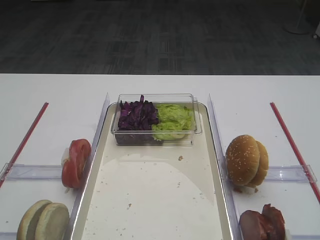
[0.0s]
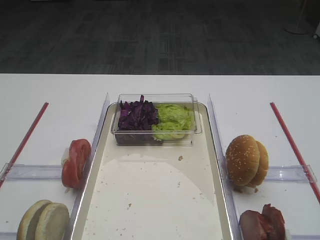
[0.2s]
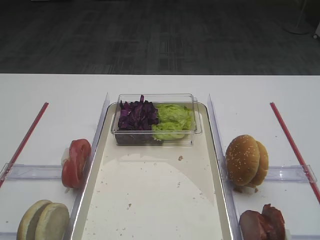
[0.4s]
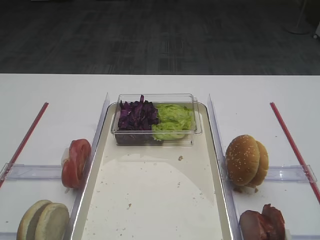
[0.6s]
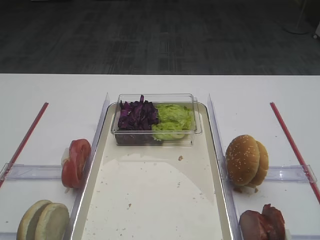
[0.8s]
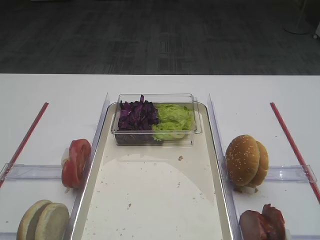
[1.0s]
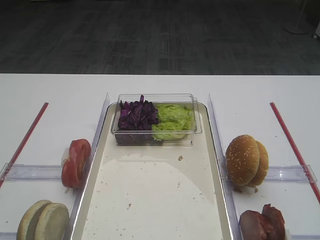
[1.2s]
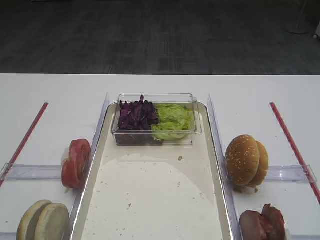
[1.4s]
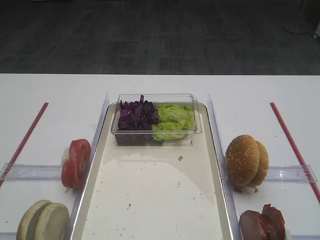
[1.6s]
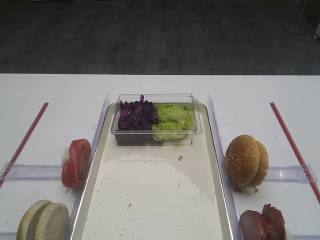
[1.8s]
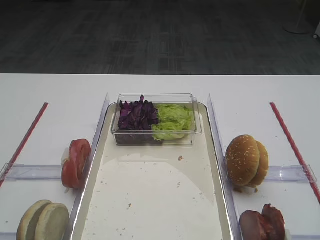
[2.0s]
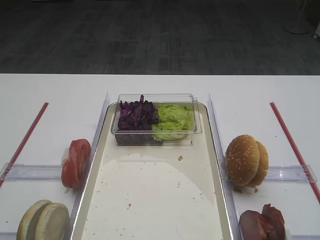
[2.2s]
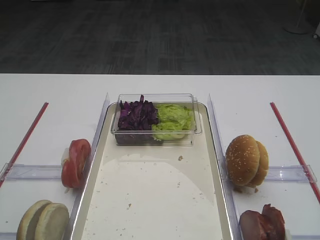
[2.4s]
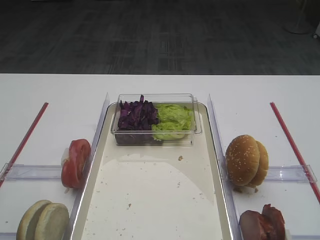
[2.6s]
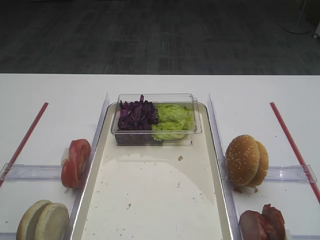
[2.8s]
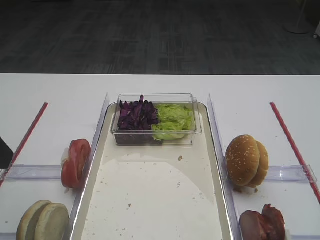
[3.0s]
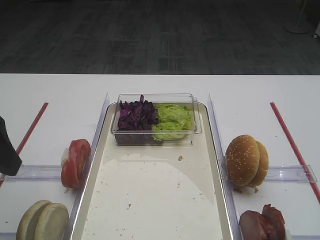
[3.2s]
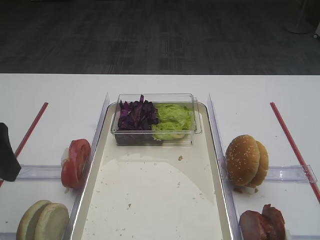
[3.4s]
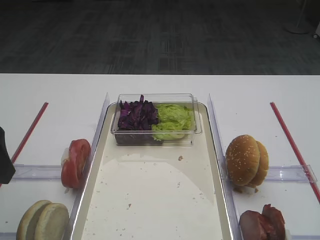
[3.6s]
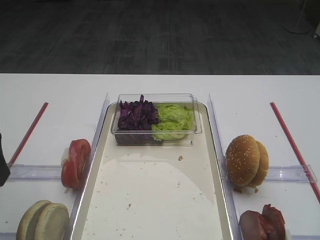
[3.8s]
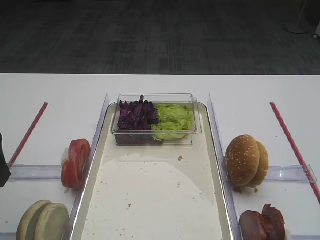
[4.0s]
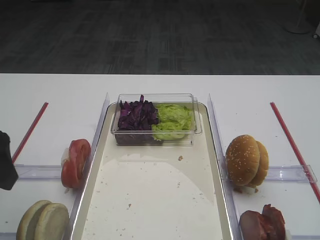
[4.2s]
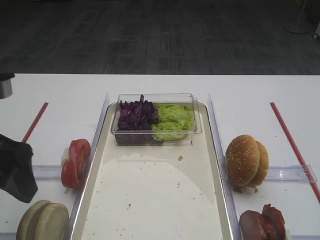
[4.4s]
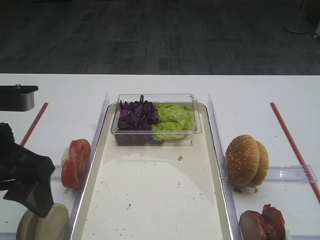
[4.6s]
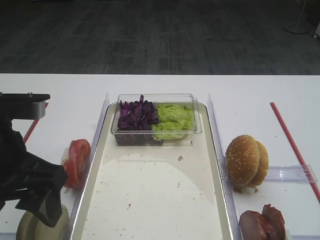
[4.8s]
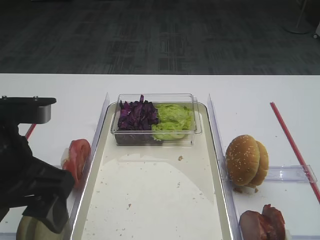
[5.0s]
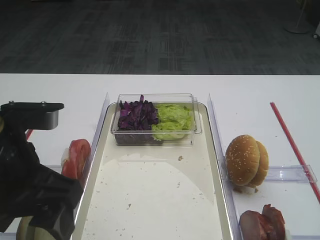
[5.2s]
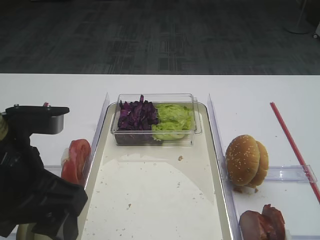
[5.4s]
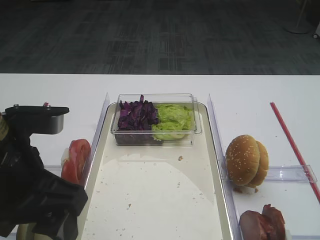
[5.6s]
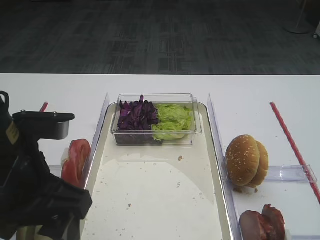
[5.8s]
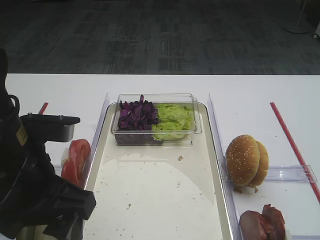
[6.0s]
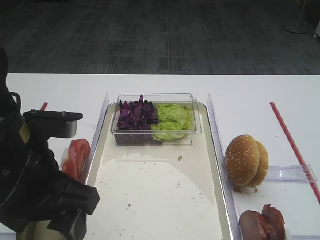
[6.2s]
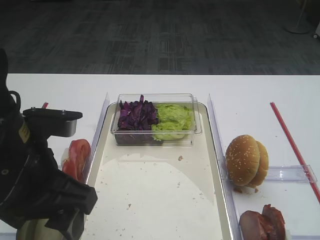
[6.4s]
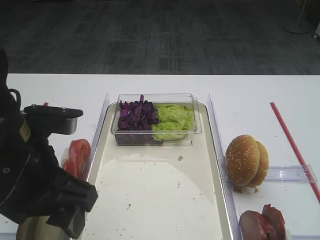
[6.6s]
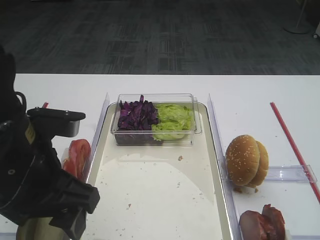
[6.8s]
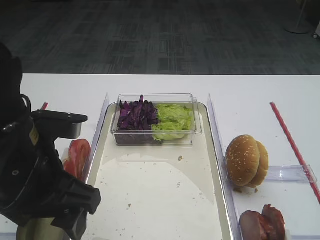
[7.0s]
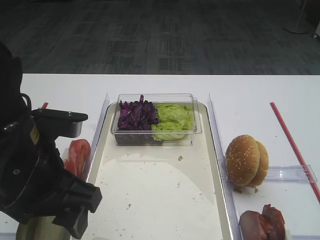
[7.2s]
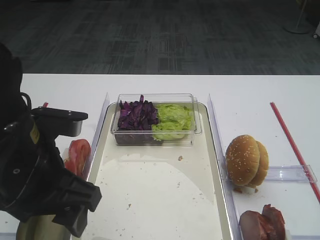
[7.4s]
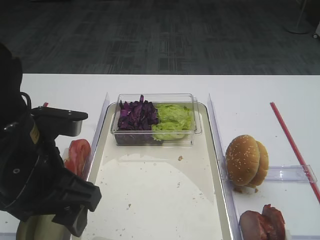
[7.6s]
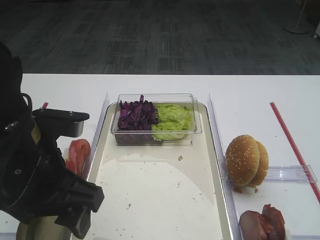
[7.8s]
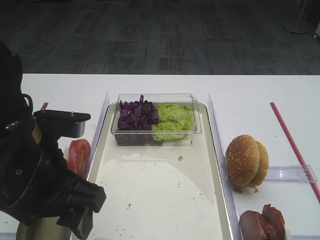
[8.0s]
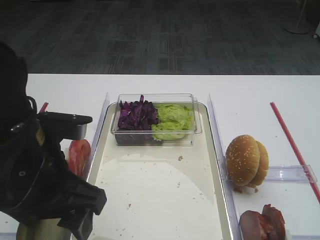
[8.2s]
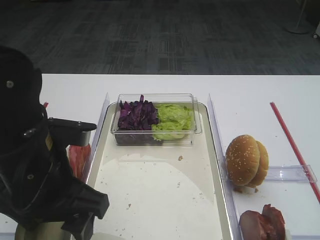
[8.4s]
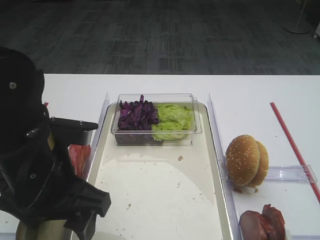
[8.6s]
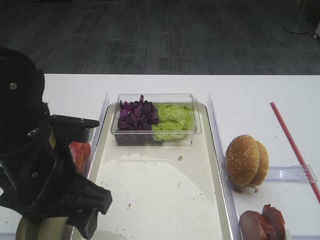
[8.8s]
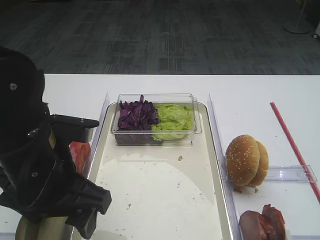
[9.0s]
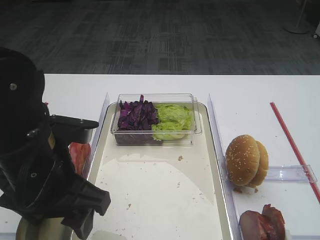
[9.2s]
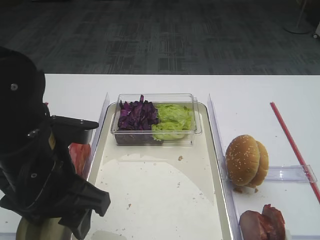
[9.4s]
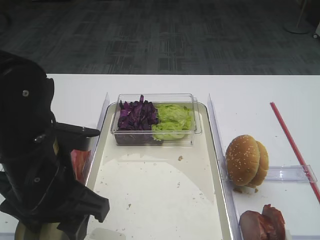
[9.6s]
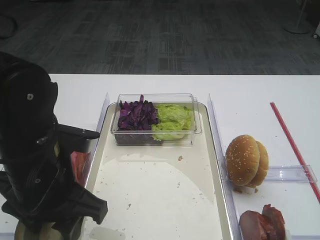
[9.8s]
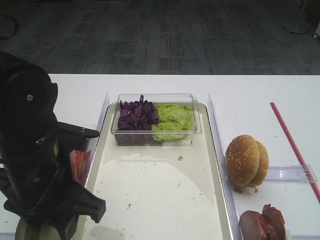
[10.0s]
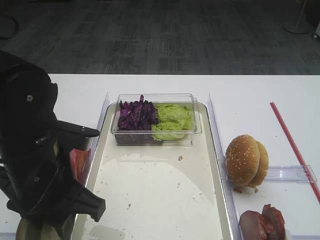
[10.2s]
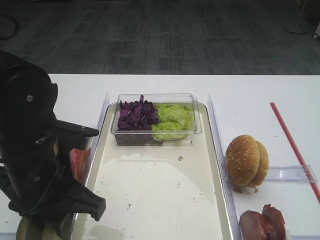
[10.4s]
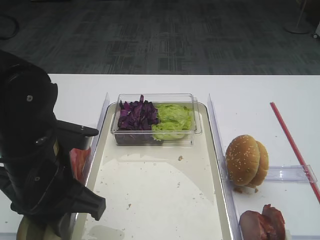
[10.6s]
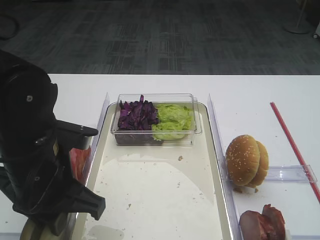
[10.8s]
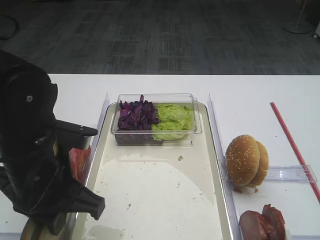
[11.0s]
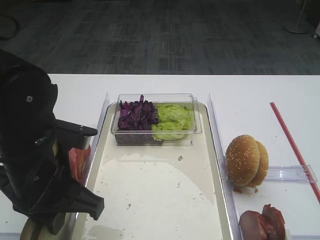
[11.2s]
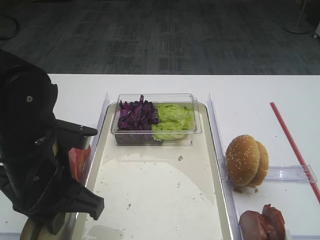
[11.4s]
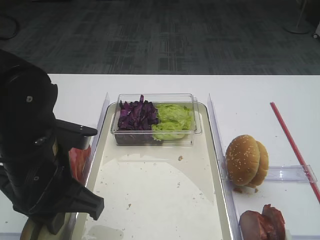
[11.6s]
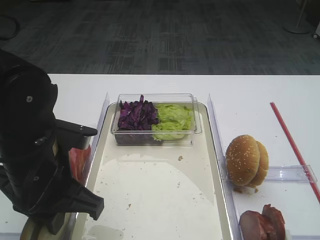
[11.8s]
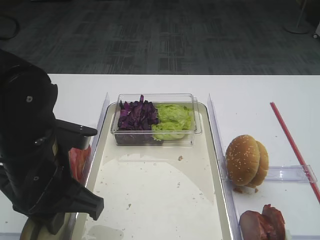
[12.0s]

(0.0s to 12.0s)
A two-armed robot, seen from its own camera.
3.0s - 4.4s: The left gripper shifts by approximately 5 cm.
4.4s - 6.0s: The left gripper heads to the right, covering roughly 5 cm.
6.0s - 9.0s: The grippers make only small movements.
9.0s - 10.4s: The left gripper closes up.
10.4s - 12.0s: Neither gripper changes place.

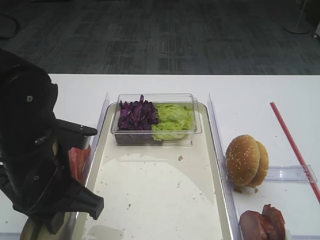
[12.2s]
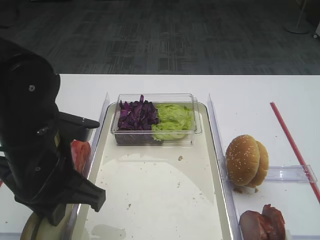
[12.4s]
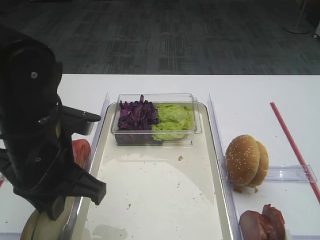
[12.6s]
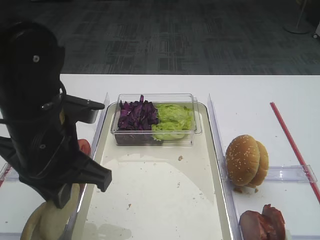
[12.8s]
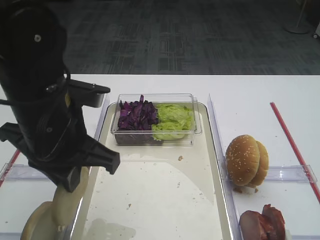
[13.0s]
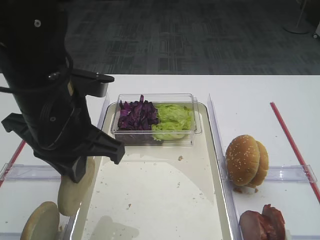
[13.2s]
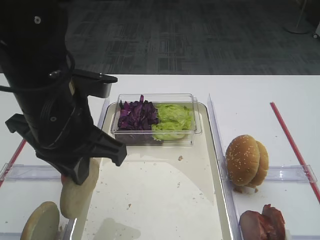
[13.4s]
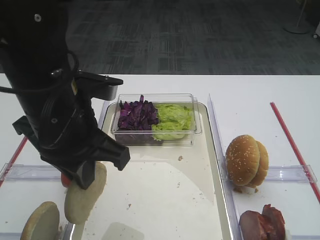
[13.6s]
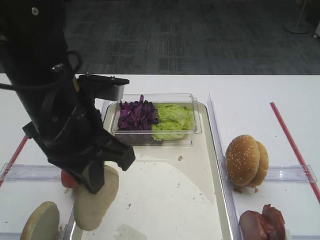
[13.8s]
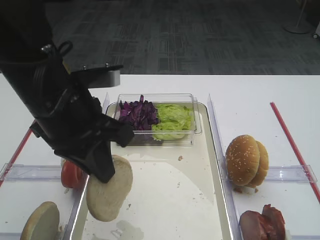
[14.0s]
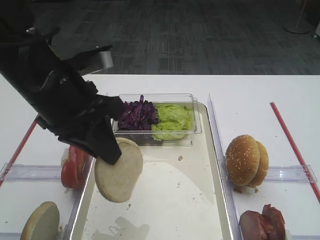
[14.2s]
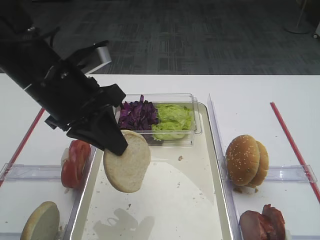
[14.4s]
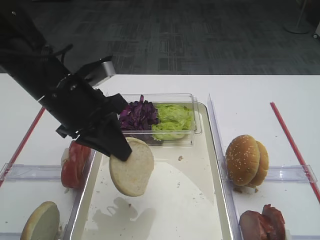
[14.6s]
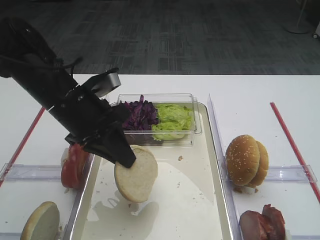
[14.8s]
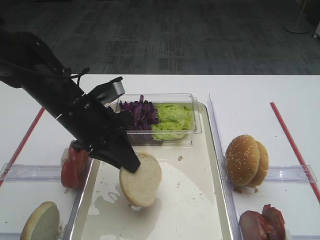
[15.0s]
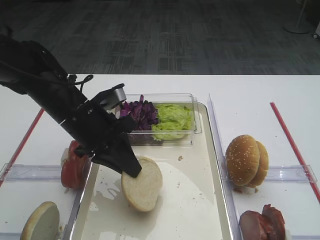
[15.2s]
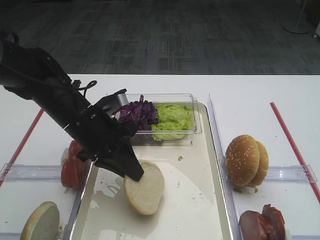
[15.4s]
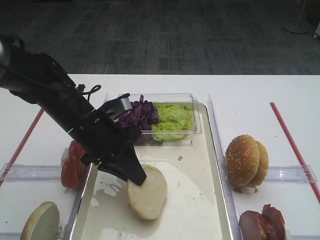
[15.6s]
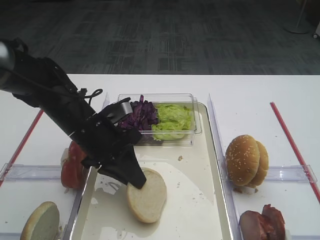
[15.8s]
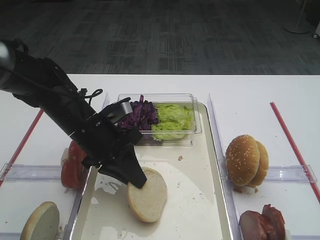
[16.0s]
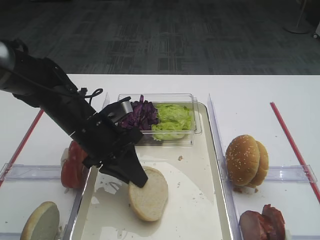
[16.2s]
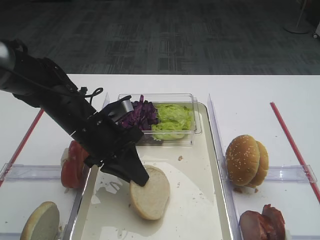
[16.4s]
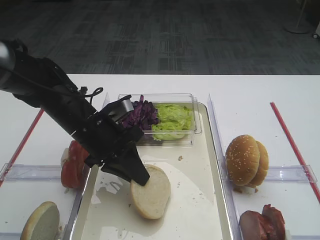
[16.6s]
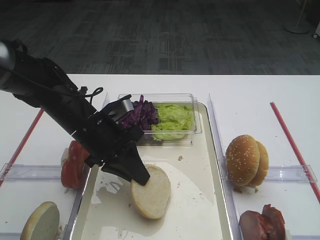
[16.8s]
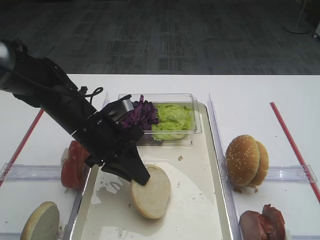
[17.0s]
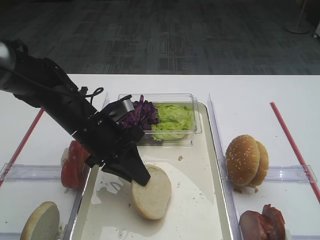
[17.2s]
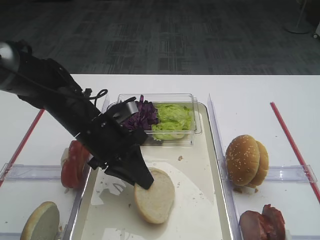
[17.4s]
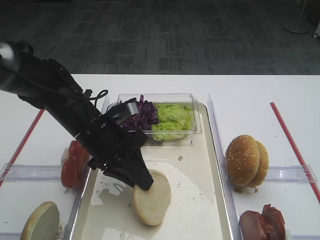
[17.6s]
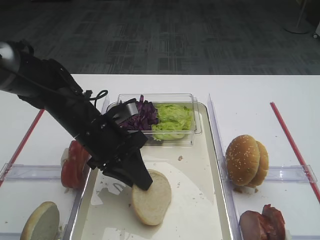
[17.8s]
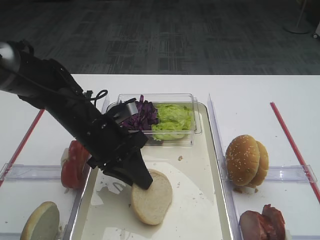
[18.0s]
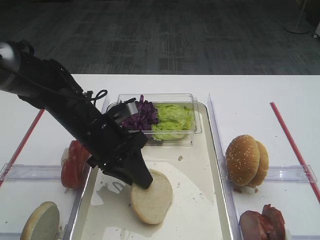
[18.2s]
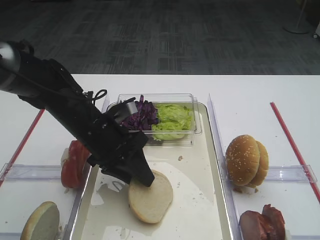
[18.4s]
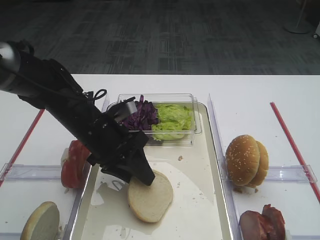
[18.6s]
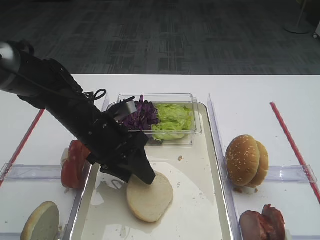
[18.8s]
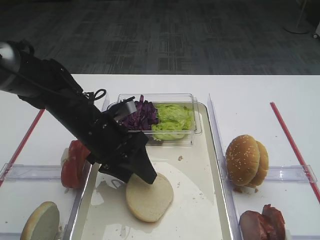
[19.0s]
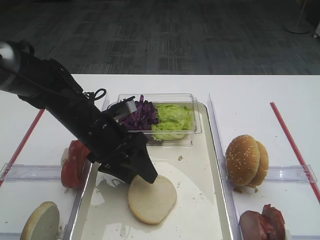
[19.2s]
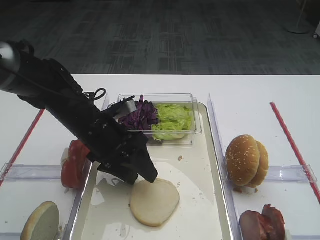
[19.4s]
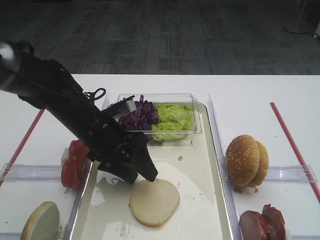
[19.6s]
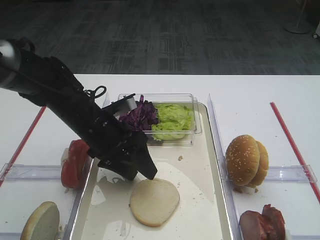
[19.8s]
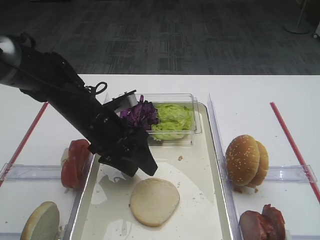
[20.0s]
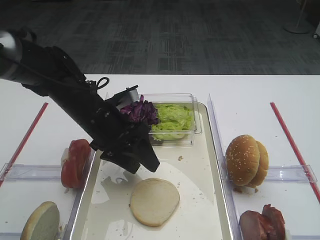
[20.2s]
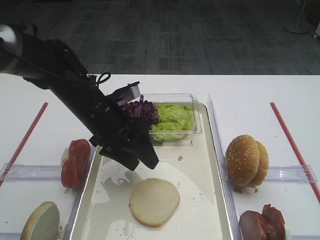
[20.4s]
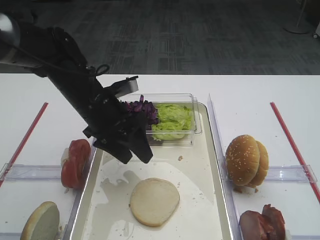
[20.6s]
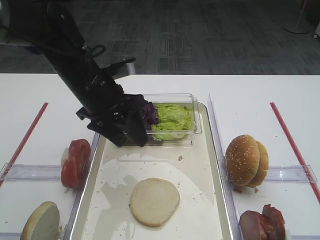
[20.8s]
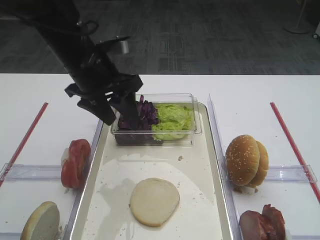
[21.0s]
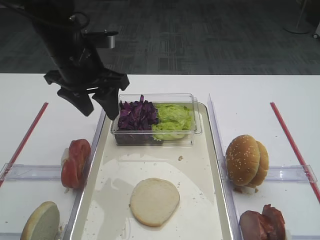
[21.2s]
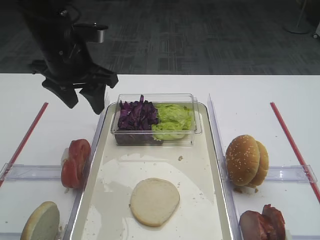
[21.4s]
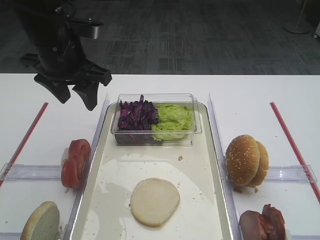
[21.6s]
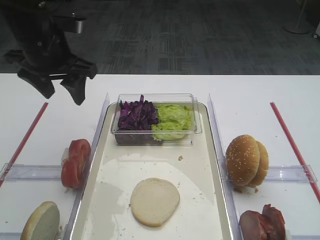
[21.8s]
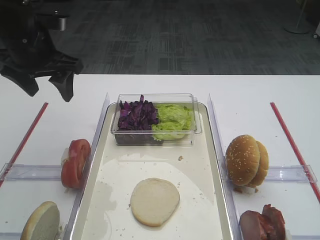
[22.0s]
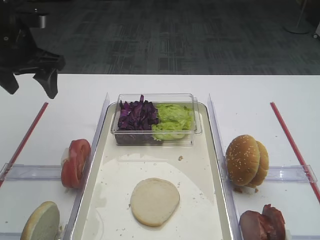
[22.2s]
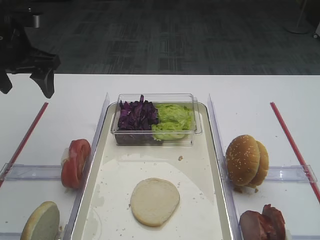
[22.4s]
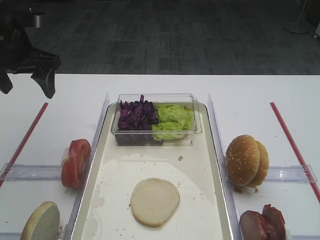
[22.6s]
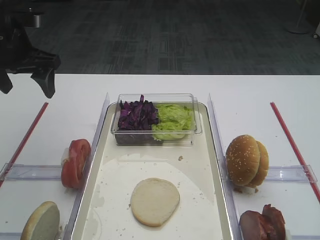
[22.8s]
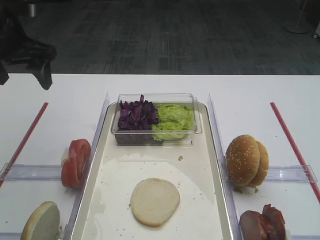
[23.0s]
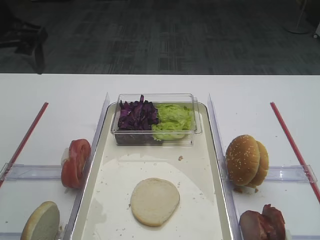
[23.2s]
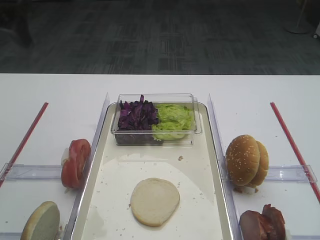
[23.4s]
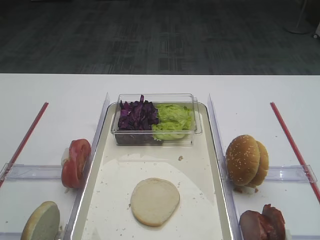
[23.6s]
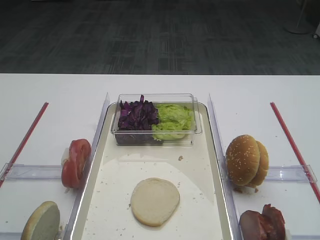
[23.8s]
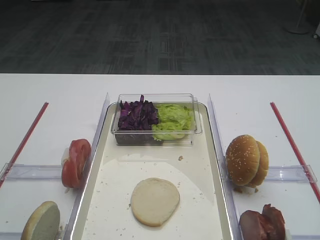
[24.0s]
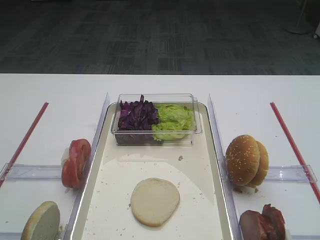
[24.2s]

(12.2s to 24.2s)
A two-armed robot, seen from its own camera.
Step, 13.0s - 20.0s: Place the bread slice on the tray with the left gripper.
12.2s - 13.8s: The left gripper travels upward by approximately 5 cm.
13.8s - 15.2s: The left gripper shifts roughly 10 cm downward and forward.
15.2s - 16.6s: The grippers stay close to where they were, moving slightly.
16.6s - 18.2s: Both grippers stay put.
18.2s - 19.8s: The left gripper opens up.
19.8s - 21.2s: The left gripper heads upward, covering some 10 cm.
21.2s - 22.6s: The left gripper heads to the left, covering some 10 cm.
22.6s - 24.2s: The left gripper is displaced backward and upward by approximately 30 cm.
